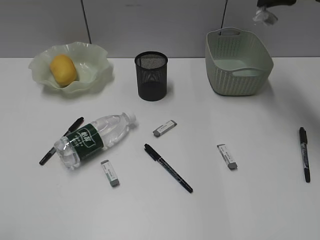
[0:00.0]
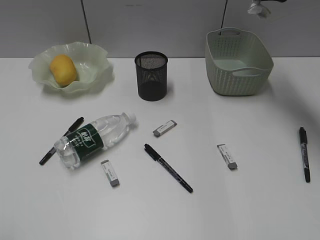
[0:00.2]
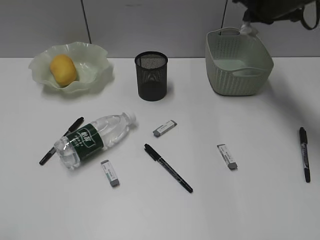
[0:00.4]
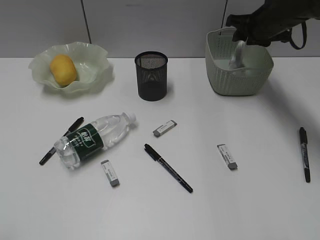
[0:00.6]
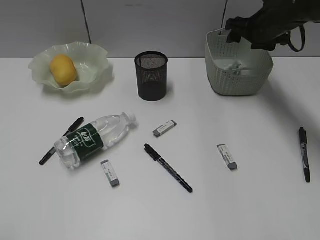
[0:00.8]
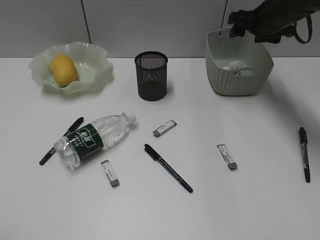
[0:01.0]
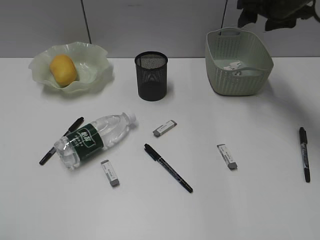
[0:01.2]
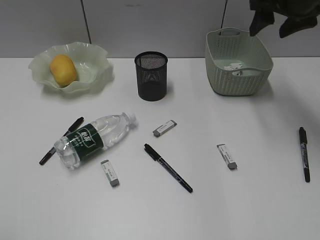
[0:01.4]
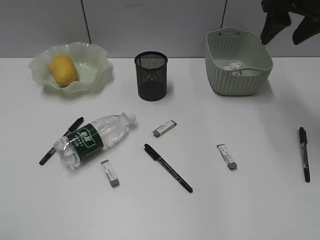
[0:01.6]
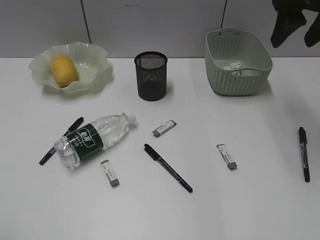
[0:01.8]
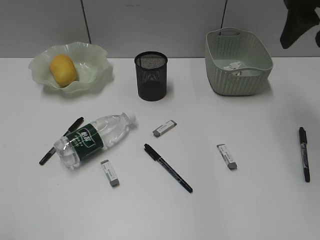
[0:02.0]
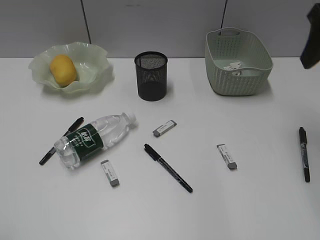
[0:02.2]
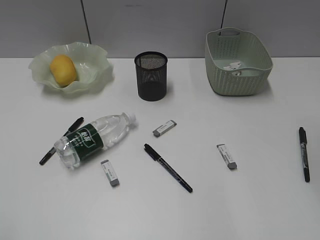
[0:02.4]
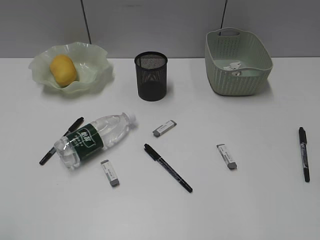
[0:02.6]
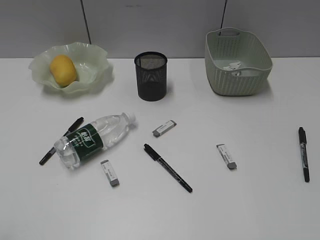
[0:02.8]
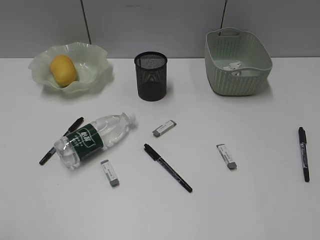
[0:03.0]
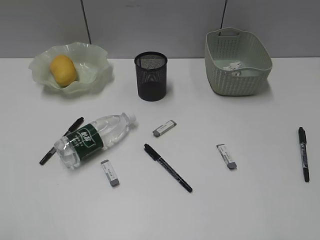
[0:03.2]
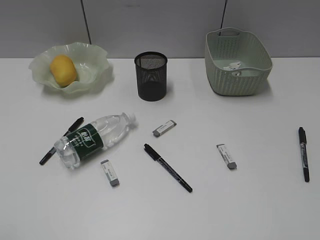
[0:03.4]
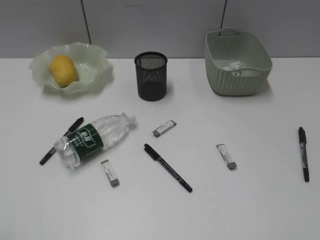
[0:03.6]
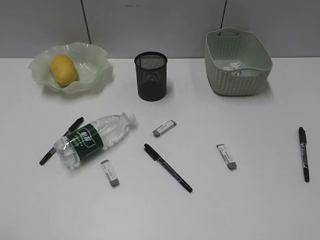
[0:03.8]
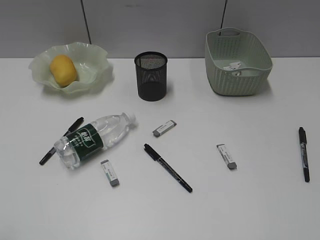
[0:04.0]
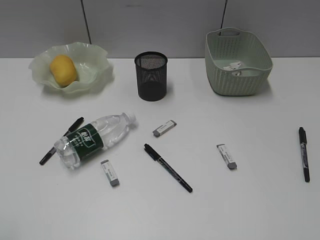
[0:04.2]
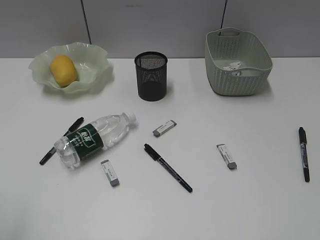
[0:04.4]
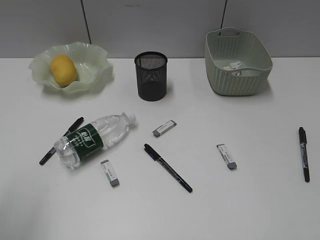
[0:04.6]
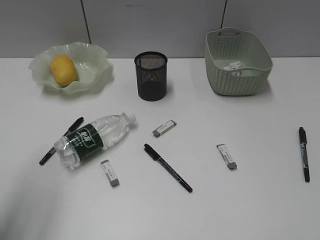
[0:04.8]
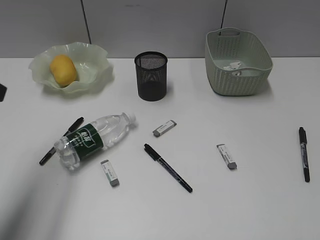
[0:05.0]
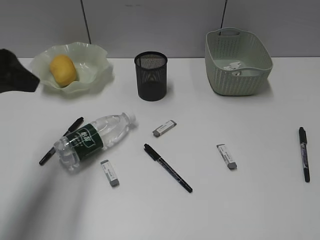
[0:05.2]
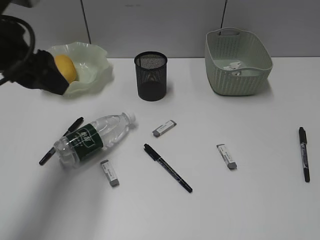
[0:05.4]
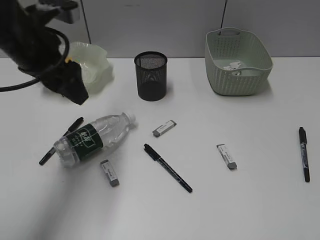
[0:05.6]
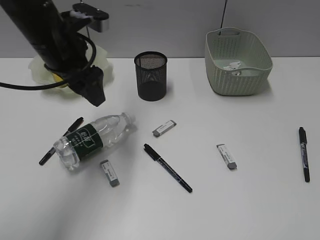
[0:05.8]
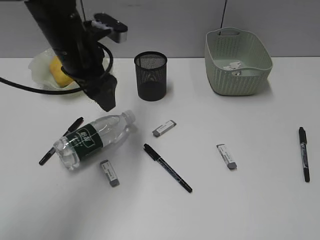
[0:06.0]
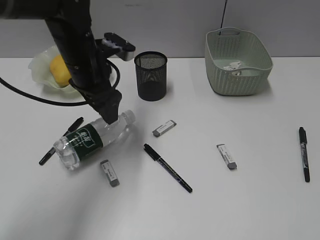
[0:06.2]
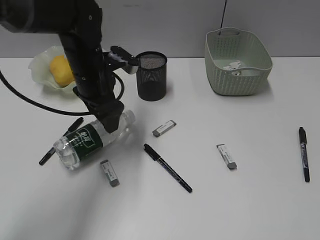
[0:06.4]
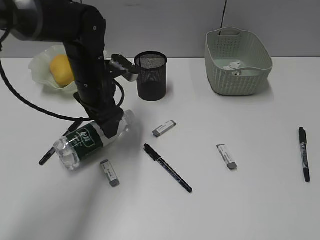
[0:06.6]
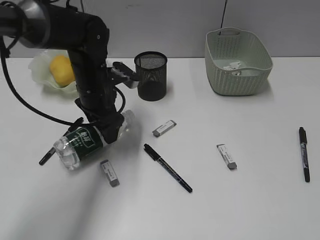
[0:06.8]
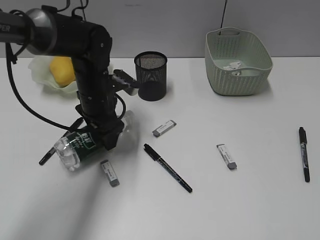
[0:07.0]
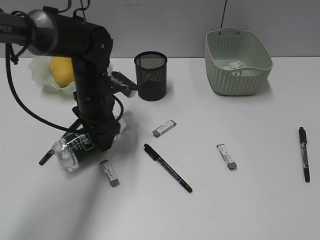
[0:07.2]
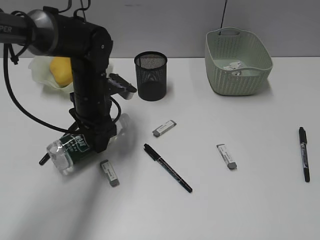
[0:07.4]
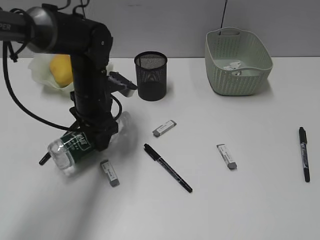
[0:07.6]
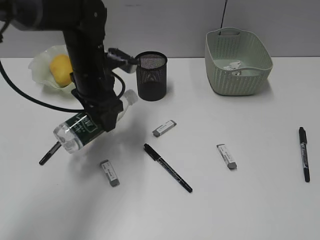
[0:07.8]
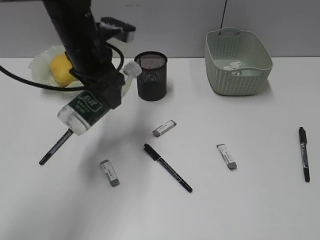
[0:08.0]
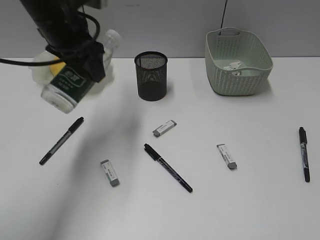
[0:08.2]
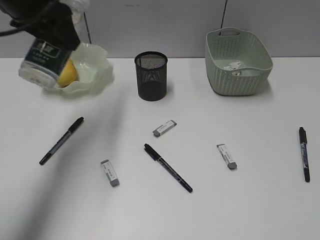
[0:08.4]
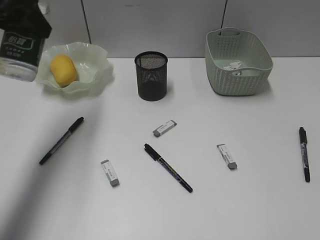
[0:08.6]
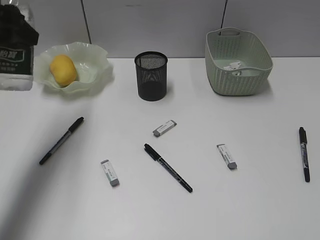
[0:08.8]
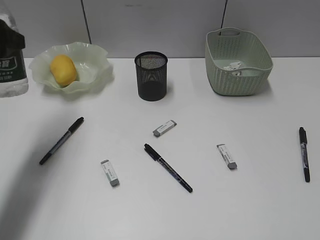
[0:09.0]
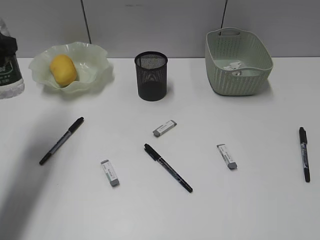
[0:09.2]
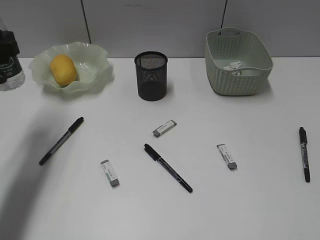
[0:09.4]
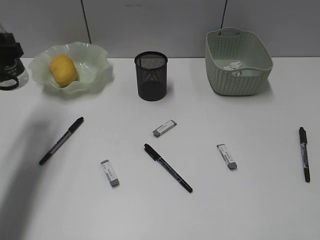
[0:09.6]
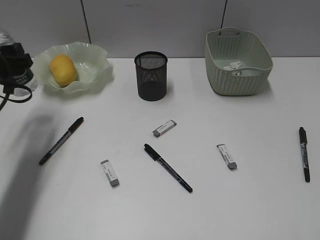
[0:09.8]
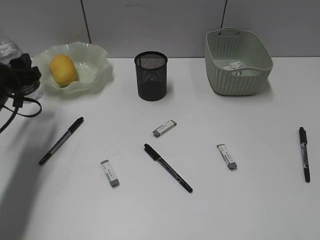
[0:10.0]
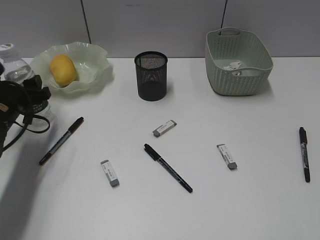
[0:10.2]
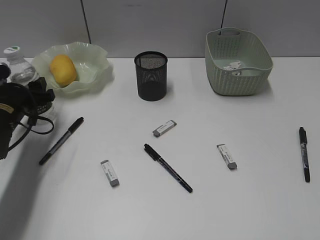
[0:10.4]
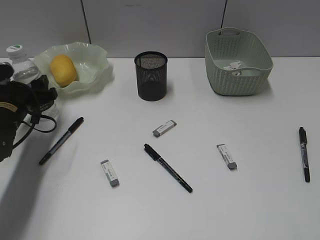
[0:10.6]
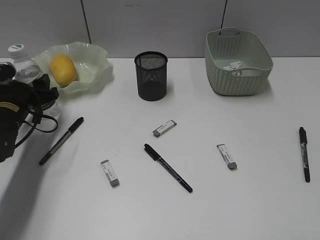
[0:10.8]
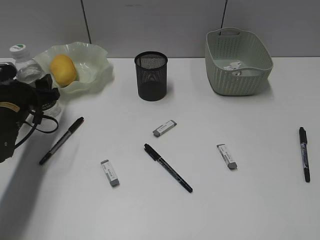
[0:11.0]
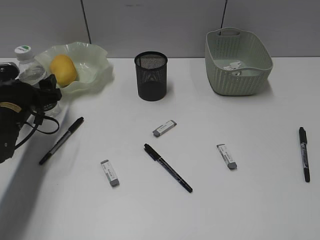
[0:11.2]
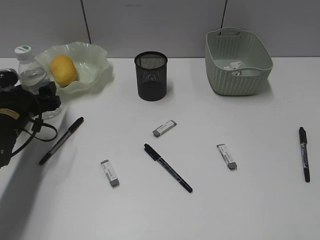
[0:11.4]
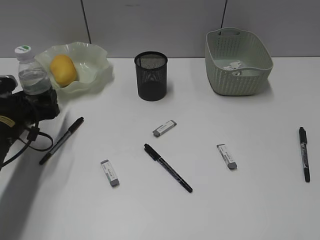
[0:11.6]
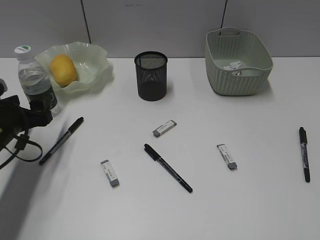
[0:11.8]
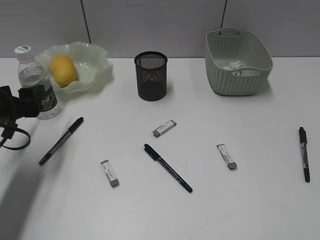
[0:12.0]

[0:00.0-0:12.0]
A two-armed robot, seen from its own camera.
Step, 0:00.0 to 0:00.8: Place the waste paper in the basket with right gripper.
Step, 0:01.0 to 0:07.0: Grasp the bottle with left gripper.
Step, 0:07.2 to 0:11.6: Stand the bottle with left gripper.
0:00.0 to 0:01.6: The right gripper shifts approximately 5 cm backward, reaches some 10 cm downward, then returns, and opens its fingers.
0:01.6 to 0:03.0: The right gripper moves backward, approximately 30 cm.
0:04.4 to 0:06.0: The left gripper moves forward and to the right, some 35 cm, and opens.
0:06.0 to 0:07.6: The left gripper moves downward, approximately 10 cm.
0:07.6 to 0:09.0: The left gripper travels to the left, upward and backward by some 20 cm.
0:09.0 to 0:10.4: The left gripper travels downward by approximately 20 cm.
0:10.4 to 0:12.0: The left gripper is displaced backward by about 5 cm.

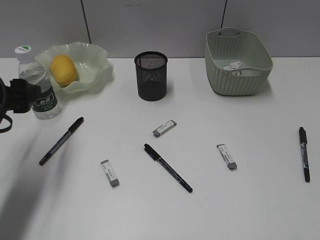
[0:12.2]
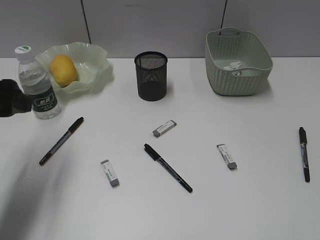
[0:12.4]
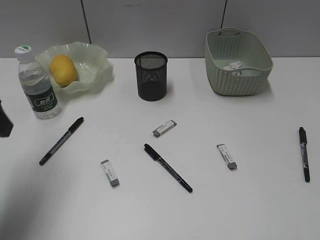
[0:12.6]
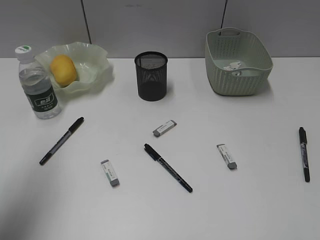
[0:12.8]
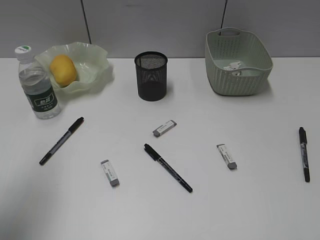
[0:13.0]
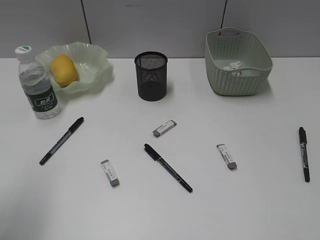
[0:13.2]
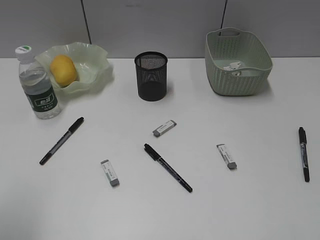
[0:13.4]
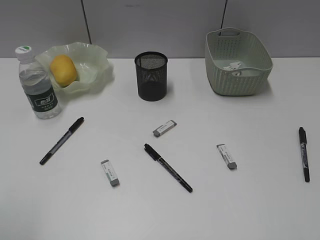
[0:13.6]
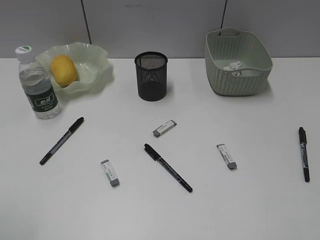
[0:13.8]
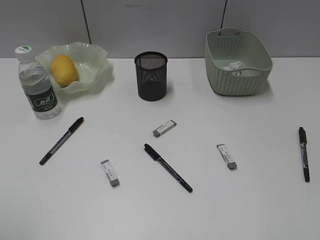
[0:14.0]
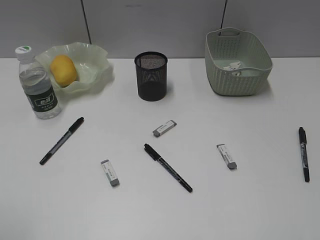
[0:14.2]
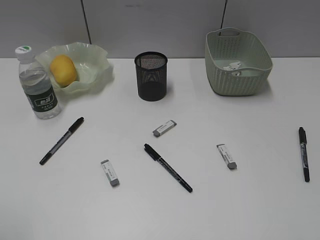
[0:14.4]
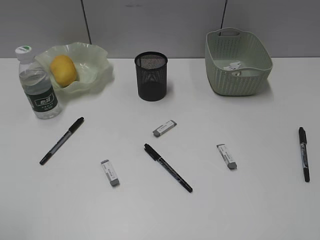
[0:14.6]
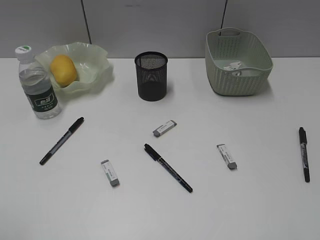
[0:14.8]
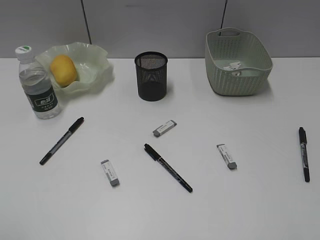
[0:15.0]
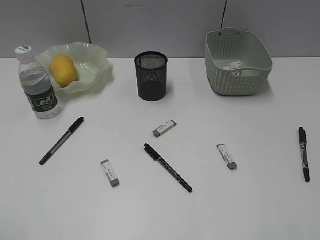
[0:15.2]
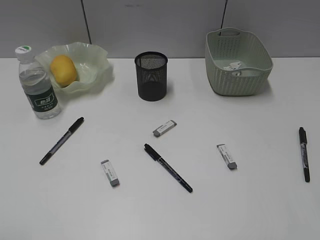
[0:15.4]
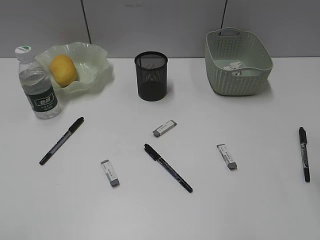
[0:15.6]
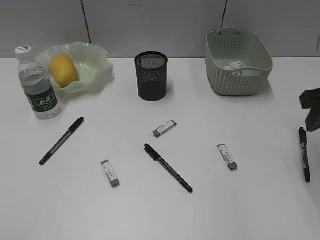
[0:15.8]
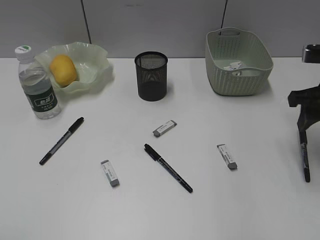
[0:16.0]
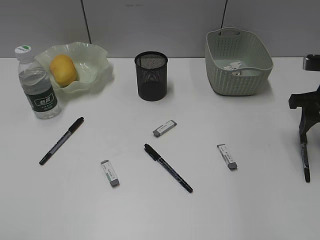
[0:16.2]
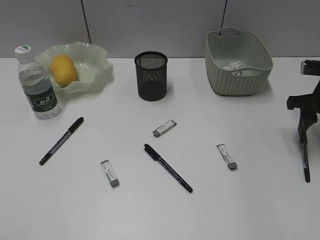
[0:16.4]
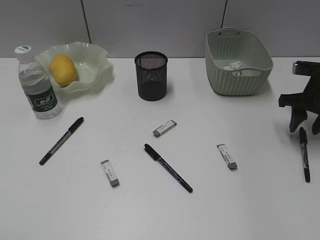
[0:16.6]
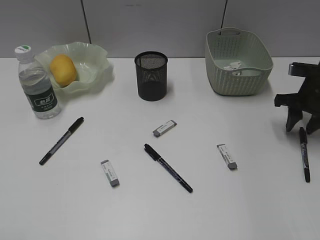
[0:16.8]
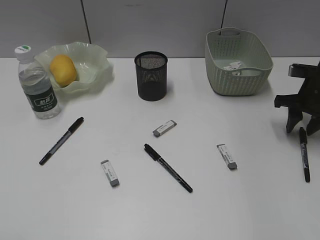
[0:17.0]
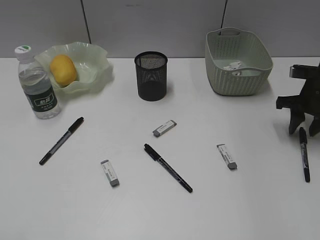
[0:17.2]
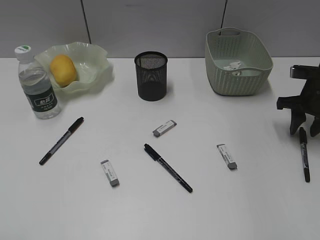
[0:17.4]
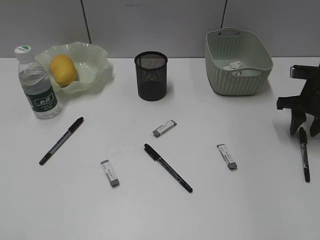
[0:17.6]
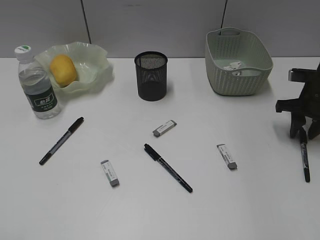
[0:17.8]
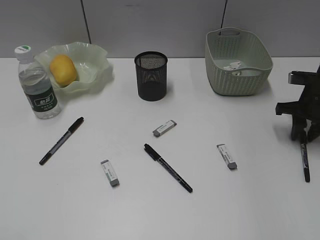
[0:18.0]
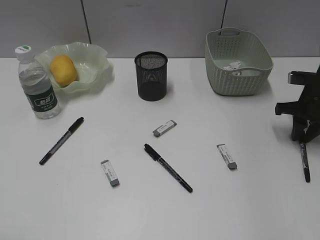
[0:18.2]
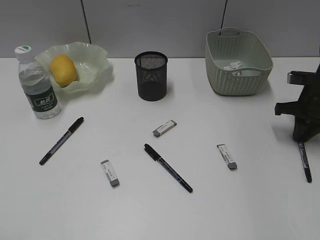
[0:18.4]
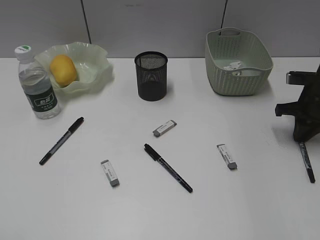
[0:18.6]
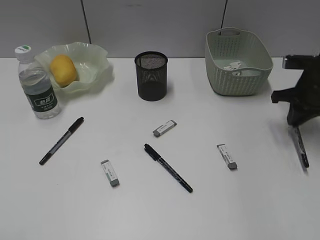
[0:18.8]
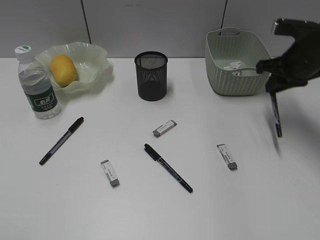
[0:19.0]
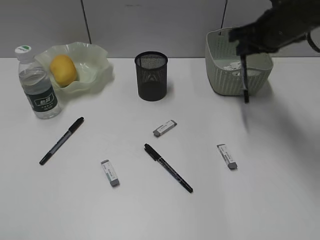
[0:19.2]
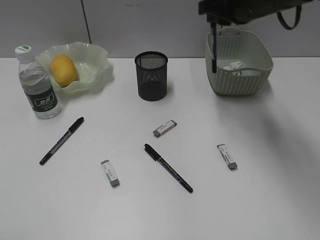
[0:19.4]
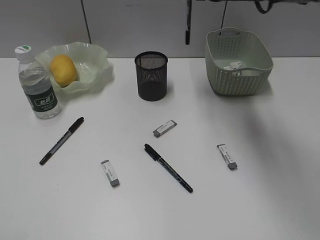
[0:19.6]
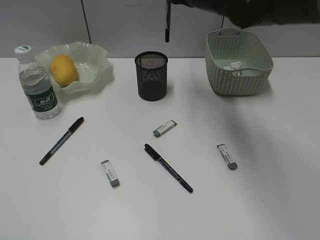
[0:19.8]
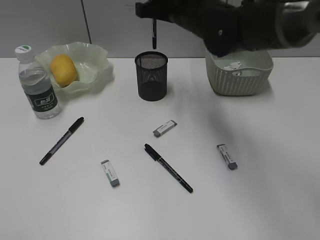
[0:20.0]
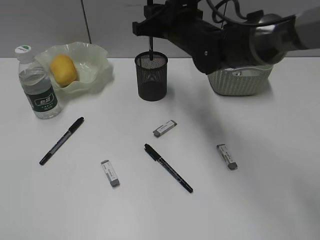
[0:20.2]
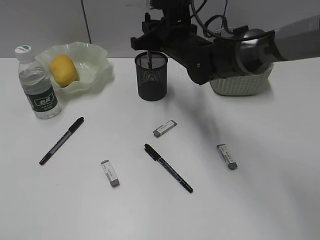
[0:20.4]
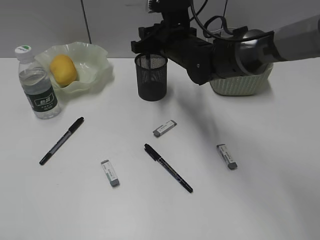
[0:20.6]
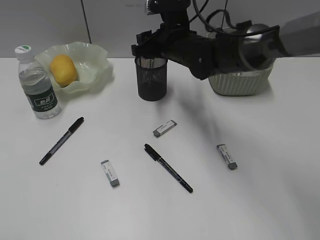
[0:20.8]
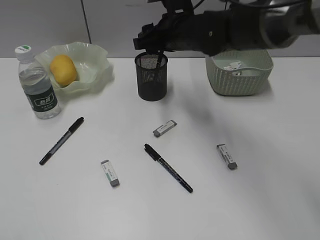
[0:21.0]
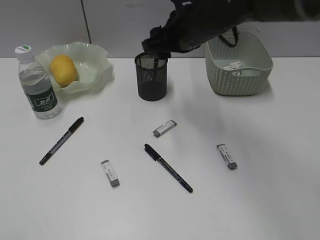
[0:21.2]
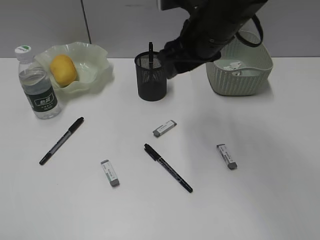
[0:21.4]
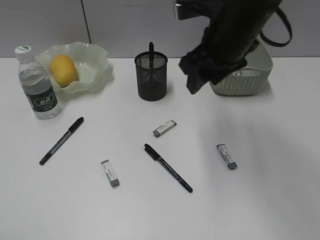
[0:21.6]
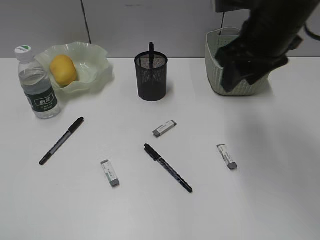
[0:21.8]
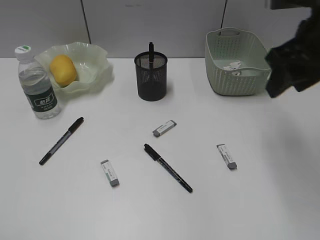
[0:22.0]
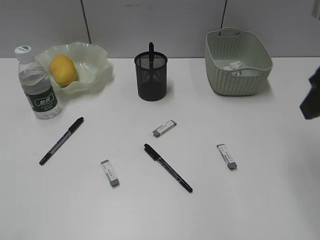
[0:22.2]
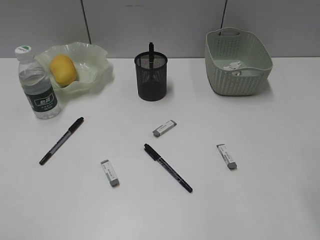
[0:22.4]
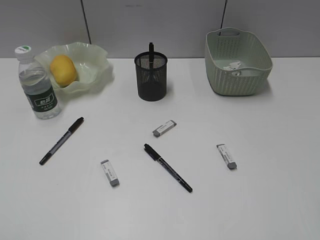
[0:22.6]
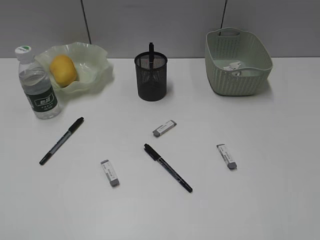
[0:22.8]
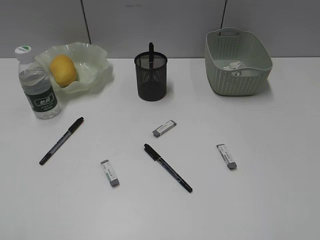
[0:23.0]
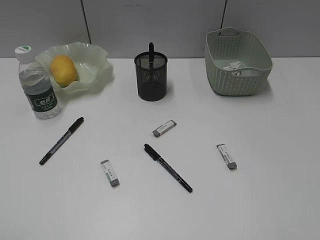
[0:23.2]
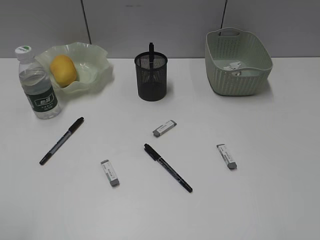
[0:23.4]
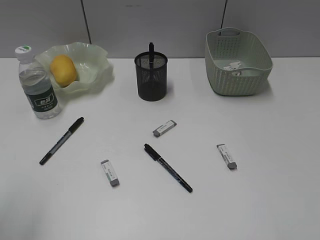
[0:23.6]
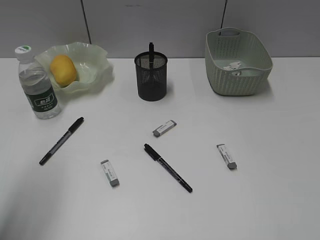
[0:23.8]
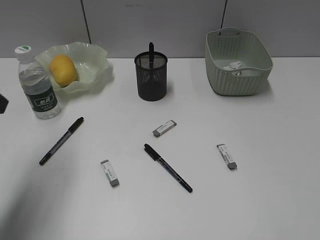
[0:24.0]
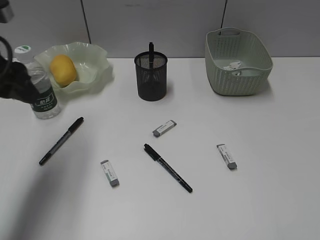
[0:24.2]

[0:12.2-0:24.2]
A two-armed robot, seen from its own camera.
Step, 0:12.2 to 0:18.6: Grasp the black pen with right gripper.
Step, 0:18.8 to 0:21.0: Place the black pen in pen holder with right gripper.
0:12.2 to 0:13.8: The left gripper heads backward and upward, covering approximately 25 cm.
0:15.2 to 0:16.6: The right gripper goes approximately 35 cm forward and downward.
0:16.6 to 0:18.2: The right gripper closes.
0:18.2 to 0:19.8: The right gripper heads to the left and upward, covering about 30 cm.
0:19.8 to 0:21.2: The right gripper goes downward and returns, about 10 cm each way, and opens.
0:21.2 to 0:22.6: The right gripper goes about 35 cm backward and to the right.
0:22.6 to 0:24.2: The left gripper moves forward, some 30 cm.
